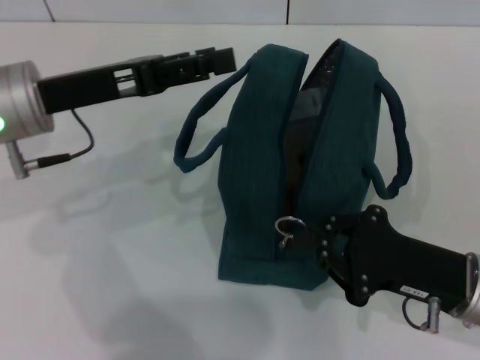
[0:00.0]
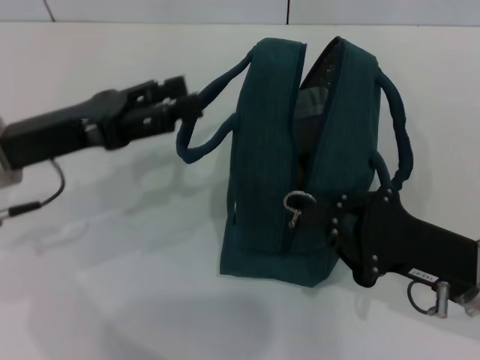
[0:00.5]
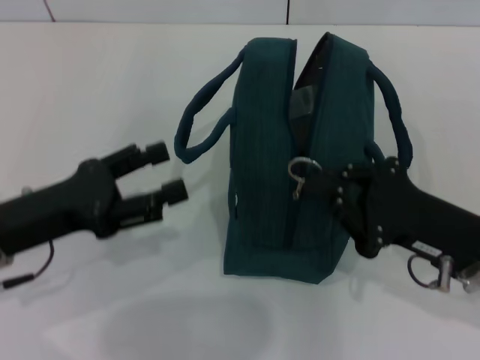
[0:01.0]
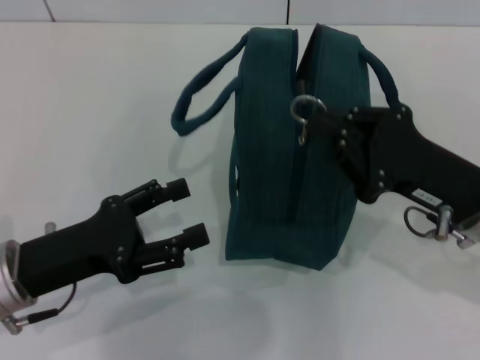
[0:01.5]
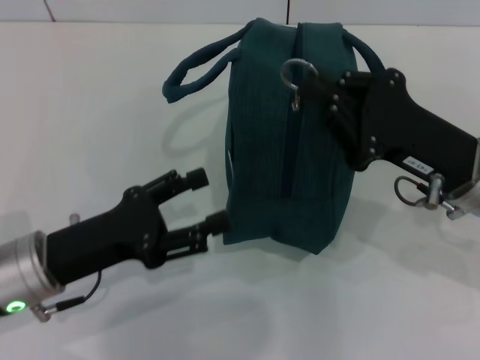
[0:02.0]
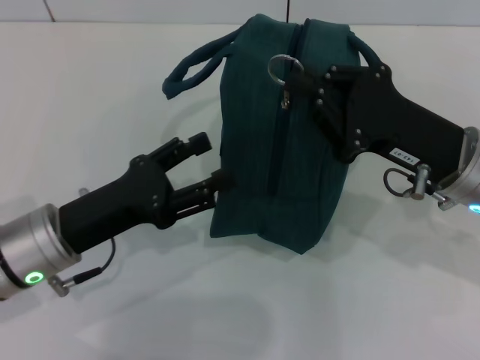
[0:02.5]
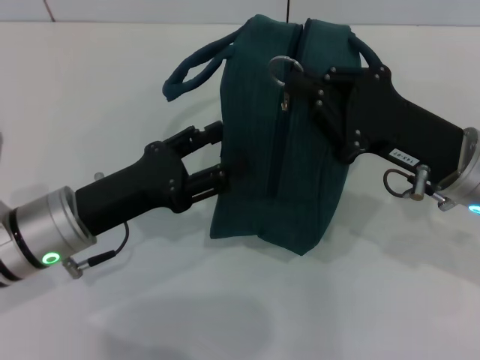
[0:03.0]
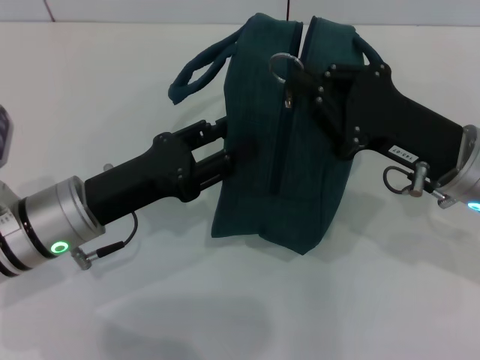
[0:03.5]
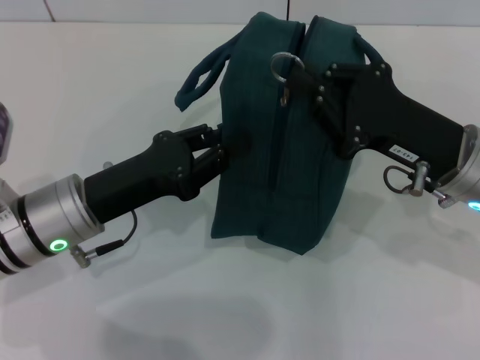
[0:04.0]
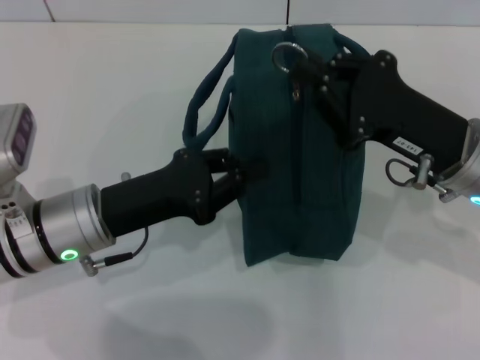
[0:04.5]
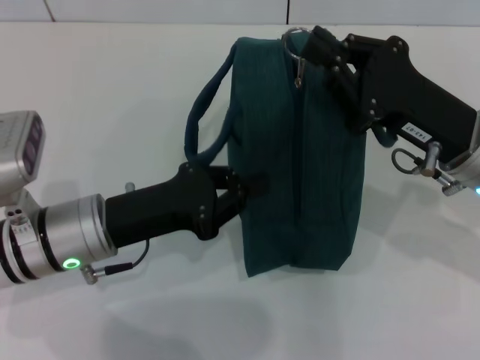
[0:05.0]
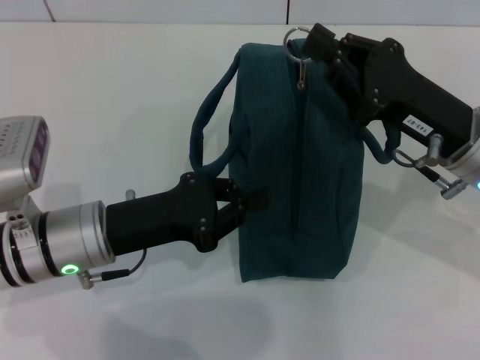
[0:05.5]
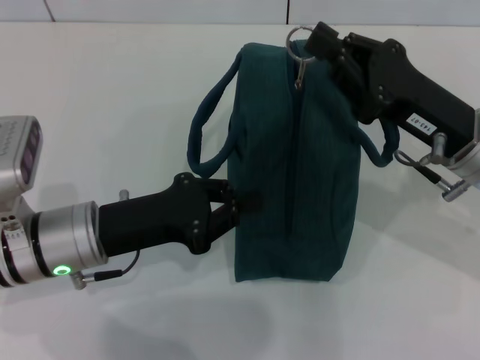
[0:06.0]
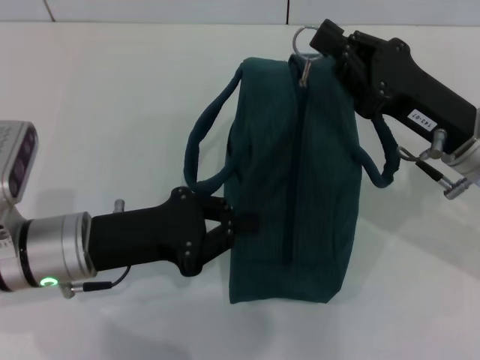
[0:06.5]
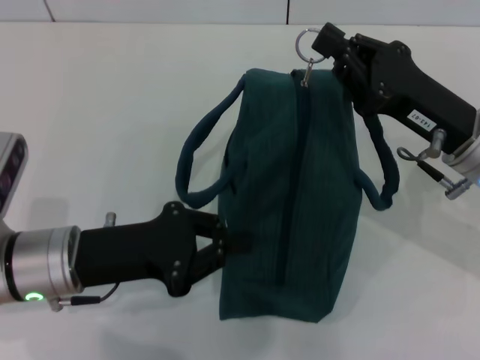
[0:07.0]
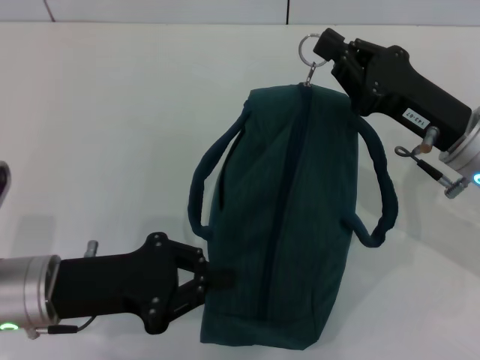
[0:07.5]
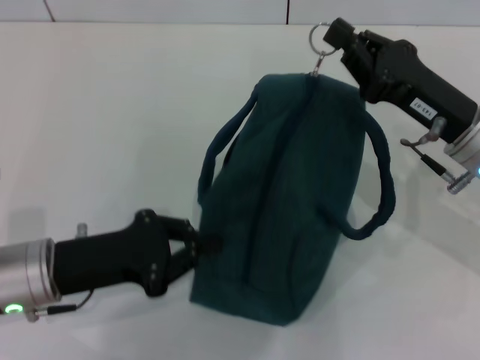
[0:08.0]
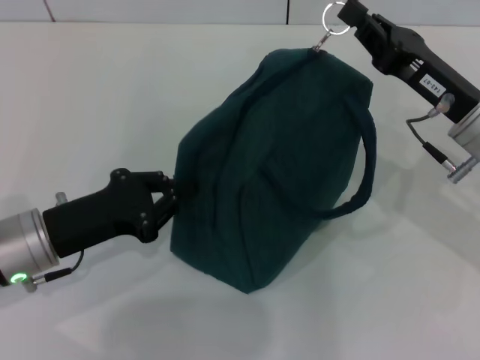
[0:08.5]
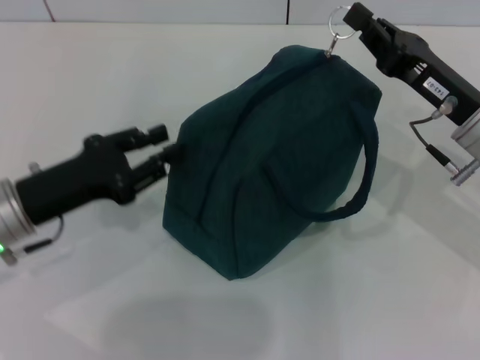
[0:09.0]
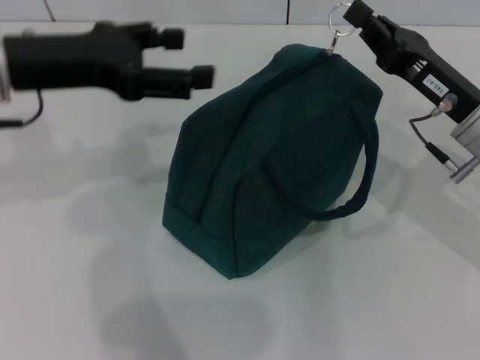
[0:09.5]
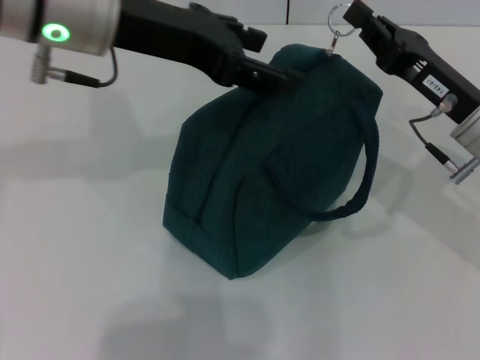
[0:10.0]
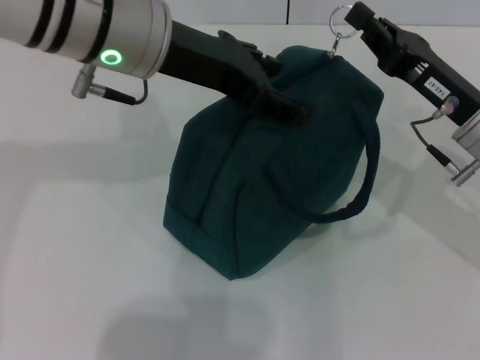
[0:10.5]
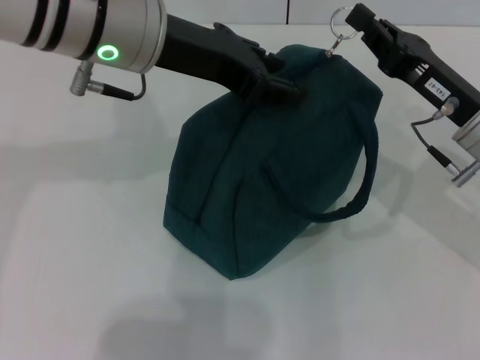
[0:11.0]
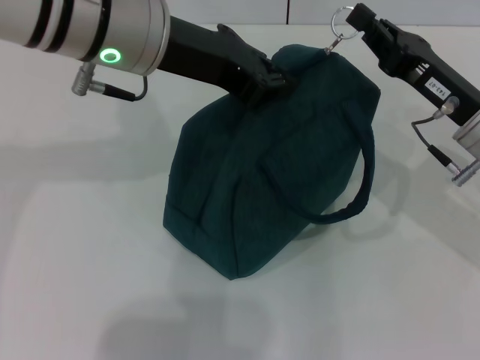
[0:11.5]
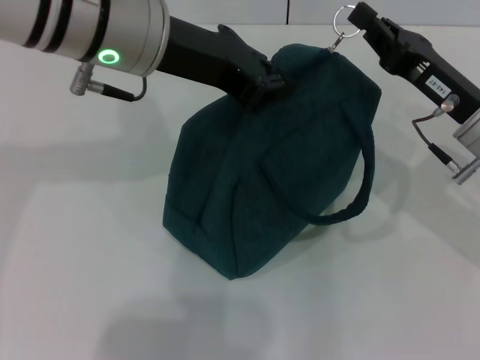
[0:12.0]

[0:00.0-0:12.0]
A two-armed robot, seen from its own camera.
0:00.0 to 0:02.0: The left gripper heads backward and downward, covering some 15 cm; the right gripper is displaced forward and upward by about 10 cm.
0:02.0 to 0:04.0: The left gripper shifts by some 5 cm, and closes up.
0:08.0 to 0:10.0: The left gripper heads upward, forward and to the right, covering approximately 25 cm, and opens up.
0:10.0 to 0:12.0: The left gripper closes up.

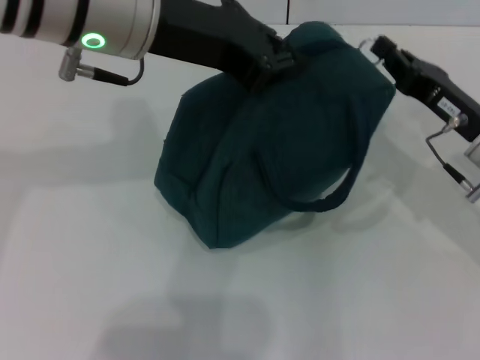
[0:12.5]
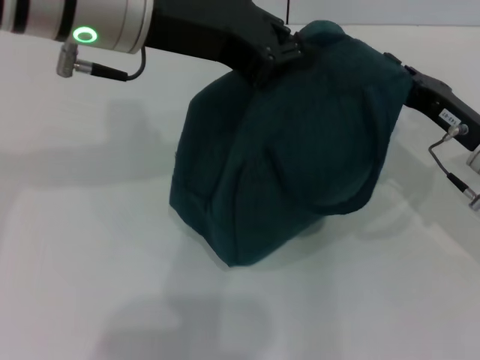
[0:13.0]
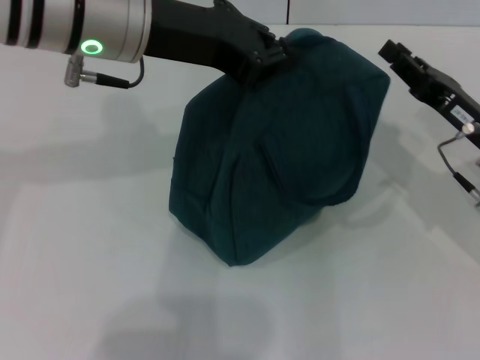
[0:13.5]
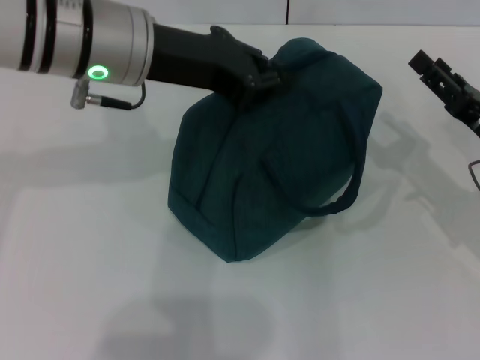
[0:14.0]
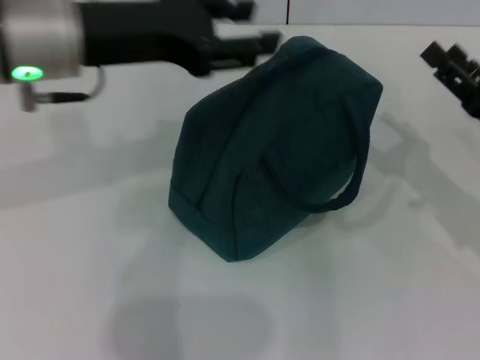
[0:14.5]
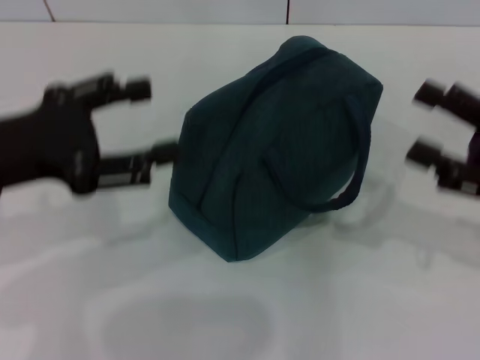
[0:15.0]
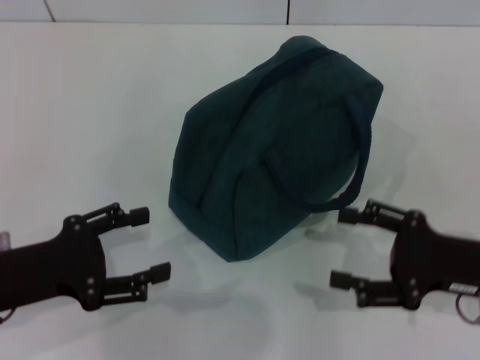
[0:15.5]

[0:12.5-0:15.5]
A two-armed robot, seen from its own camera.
0:12.5 to 0:14.0: The left gripper moves roughly 5 cm; the right gripper changes place by some 5 cm, and opens up.
0:14.0 to 0:15.5: The left gripper shifts approximately 25 cm backward, downward and to the left, and opens its fingers; the right gripper shifts roughly 5 cm backward.
